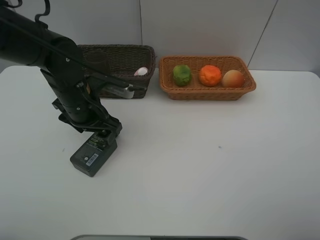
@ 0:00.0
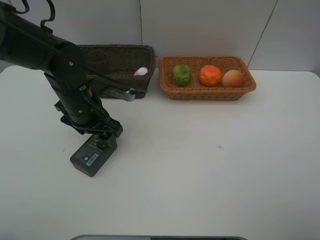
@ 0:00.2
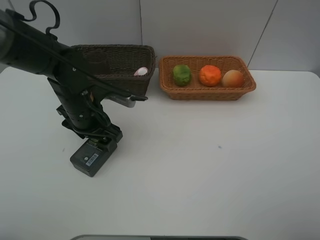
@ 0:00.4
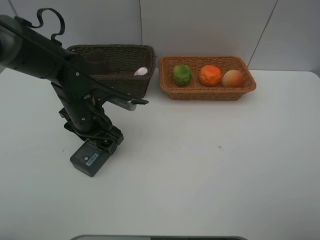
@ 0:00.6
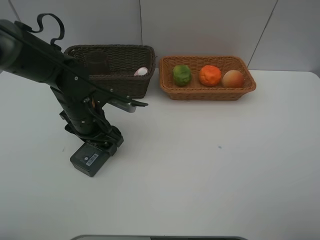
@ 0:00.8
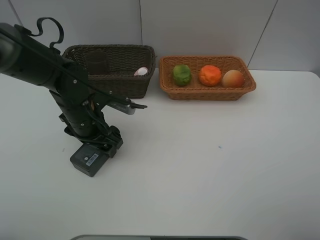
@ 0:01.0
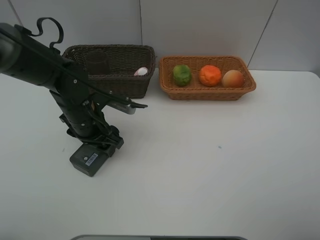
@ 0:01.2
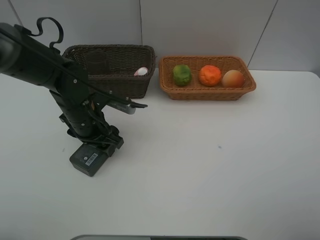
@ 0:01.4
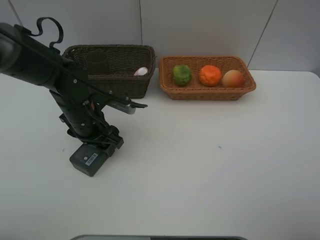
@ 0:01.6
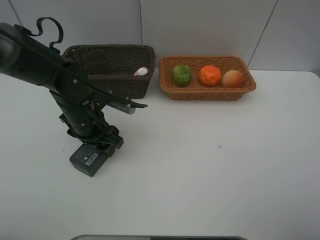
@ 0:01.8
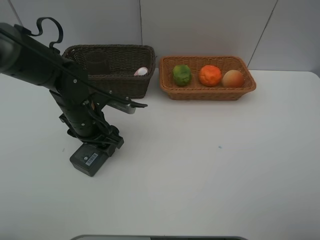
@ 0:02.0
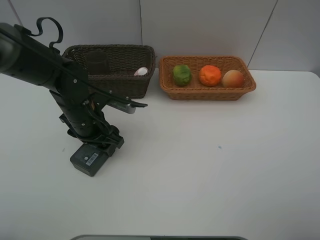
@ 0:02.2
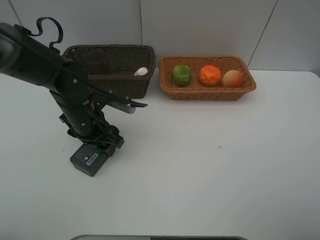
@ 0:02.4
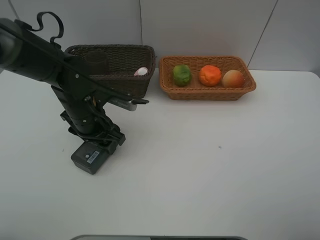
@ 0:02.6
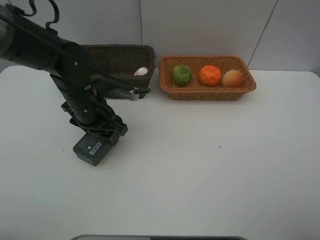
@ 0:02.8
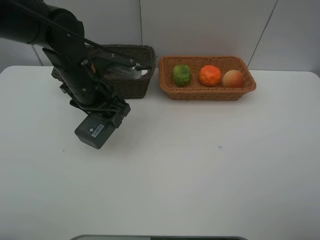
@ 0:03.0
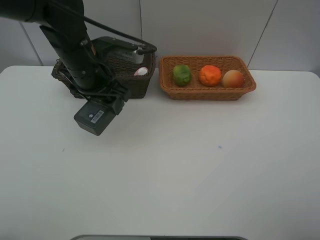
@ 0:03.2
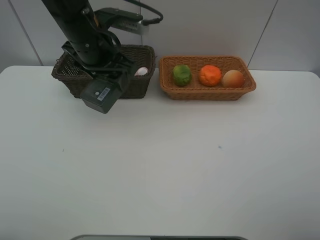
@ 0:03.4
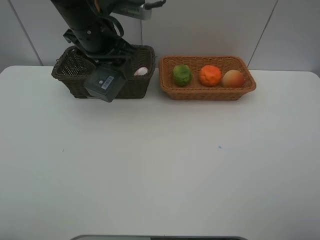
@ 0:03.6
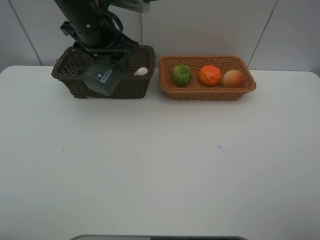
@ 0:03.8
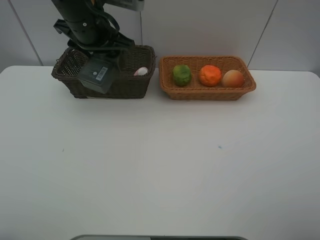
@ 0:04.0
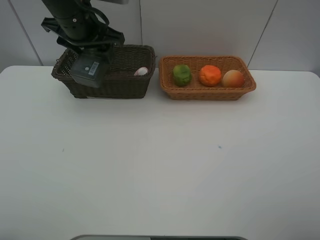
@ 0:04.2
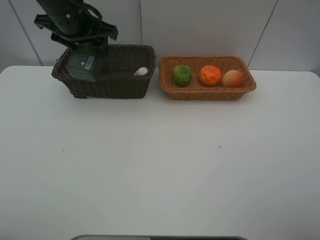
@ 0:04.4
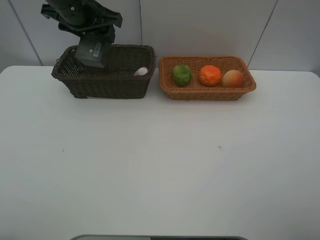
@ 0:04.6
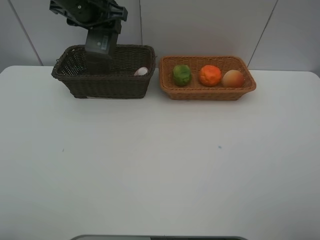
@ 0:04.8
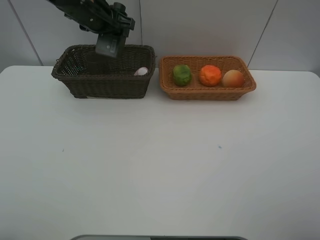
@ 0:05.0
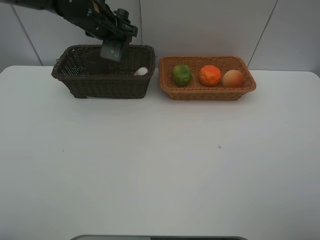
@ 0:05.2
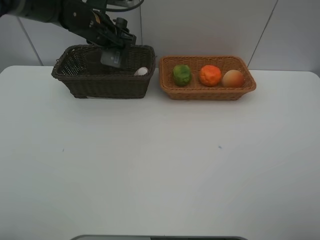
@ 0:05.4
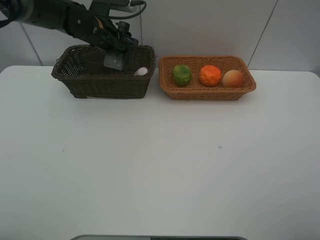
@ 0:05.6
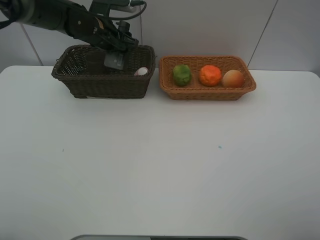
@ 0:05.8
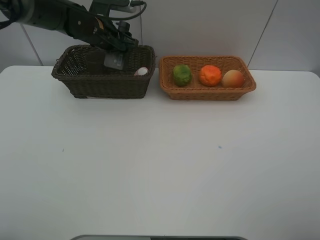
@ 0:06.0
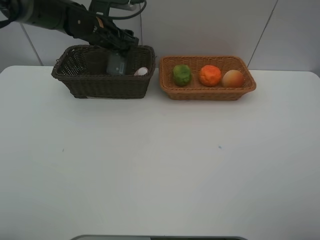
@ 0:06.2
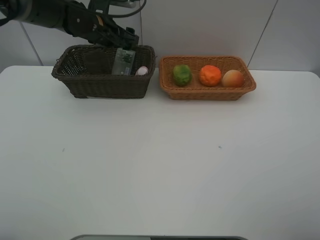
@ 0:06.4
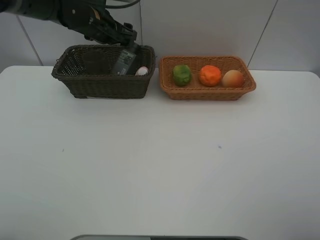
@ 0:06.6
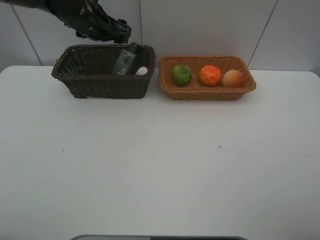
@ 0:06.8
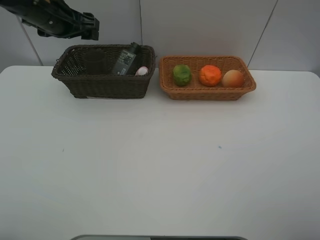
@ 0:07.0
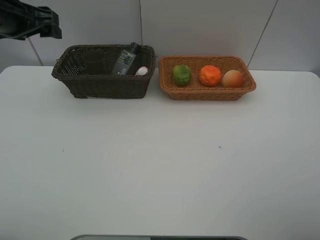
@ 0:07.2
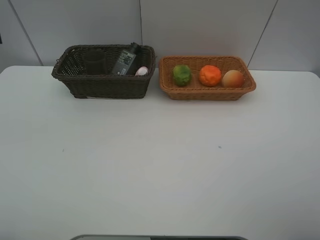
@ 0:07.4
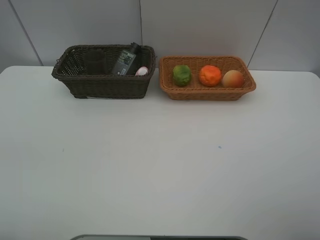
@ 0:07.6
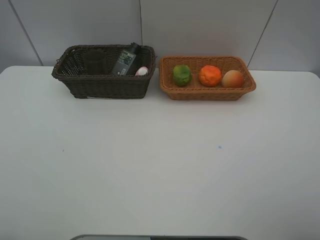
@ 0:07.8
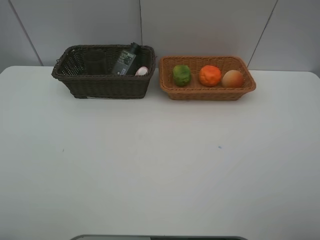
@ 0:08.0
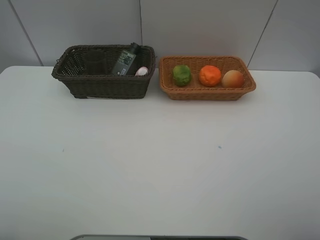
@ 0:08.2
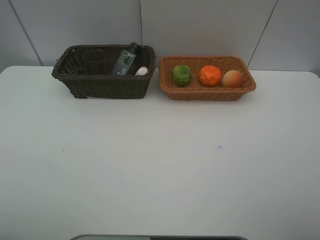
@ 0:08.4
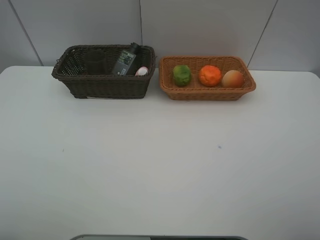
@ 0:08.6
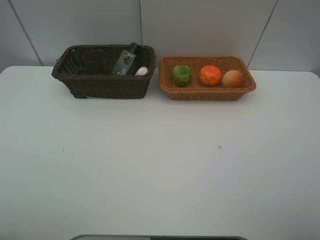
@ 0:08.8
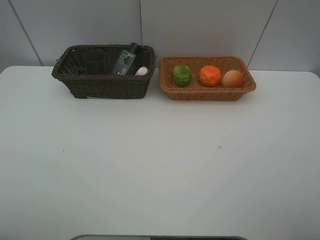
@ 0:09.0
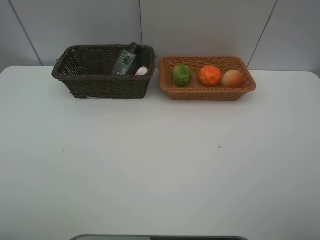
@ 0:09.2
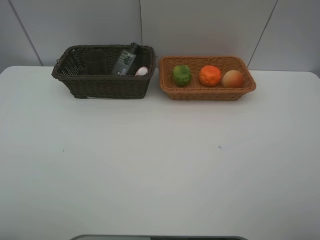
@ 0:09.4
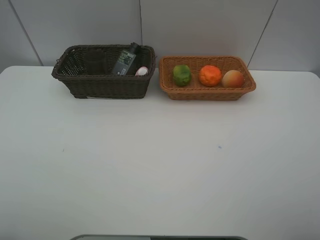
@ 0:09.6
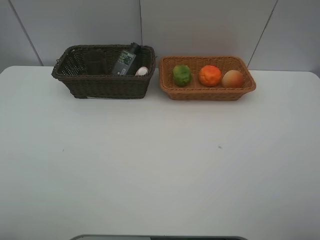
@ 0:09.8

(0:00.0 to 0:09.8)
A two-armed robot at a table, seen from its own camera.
Task of the whole recording: place multiple objects separately in different baskets.
0:00.0 - 0:02.8: The grippers move only a little.
0:02.8 - 0:04.2: The left gripper moves upward and forward, about 15 cm.
0:04.2 - 0:05.6: The left gripper is displaced forward and downward by about 10 cm.
0:05.6 - 0:07.0: The left gripper travels to the left, upward and backward by approximately 15 cm.
0:07.0 - 0:08.4: The left gripper travels backward by roughly 40 cm.

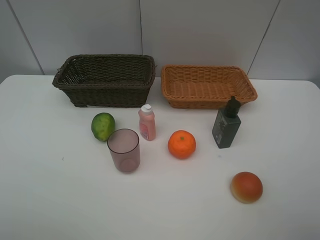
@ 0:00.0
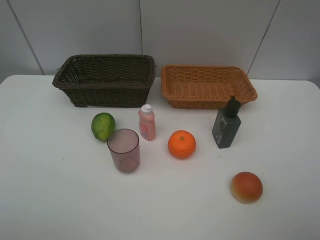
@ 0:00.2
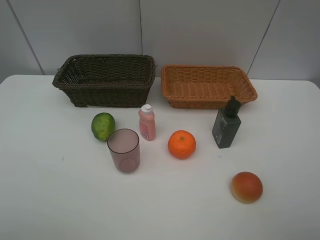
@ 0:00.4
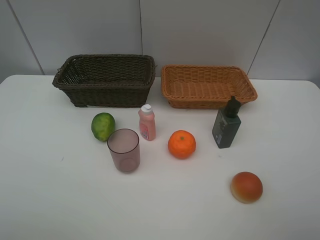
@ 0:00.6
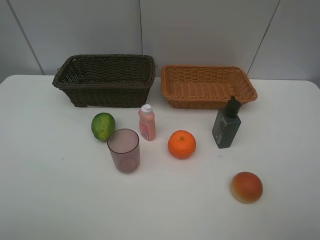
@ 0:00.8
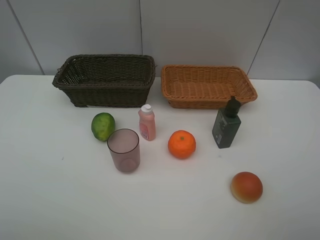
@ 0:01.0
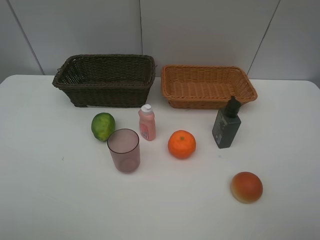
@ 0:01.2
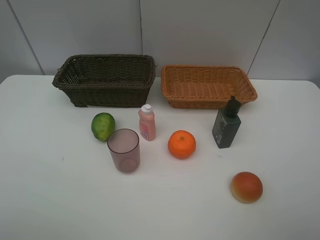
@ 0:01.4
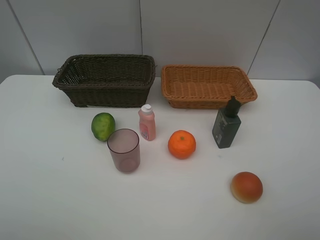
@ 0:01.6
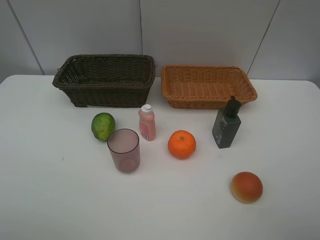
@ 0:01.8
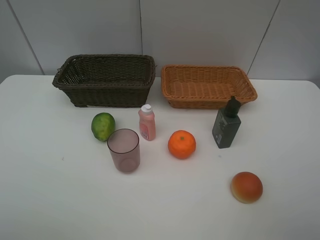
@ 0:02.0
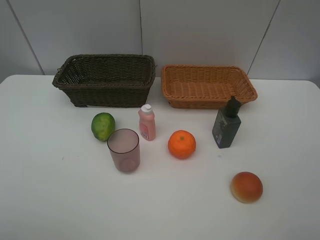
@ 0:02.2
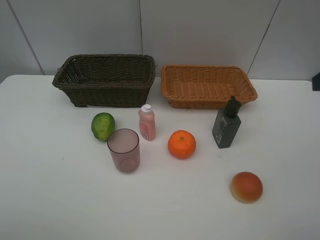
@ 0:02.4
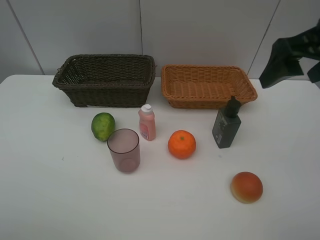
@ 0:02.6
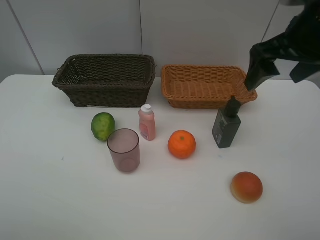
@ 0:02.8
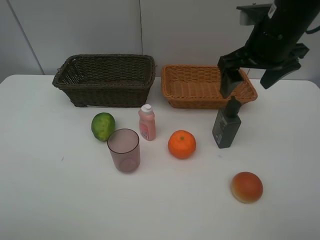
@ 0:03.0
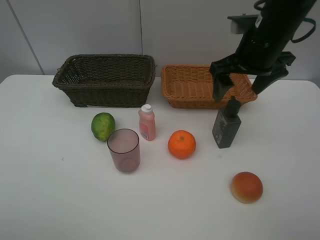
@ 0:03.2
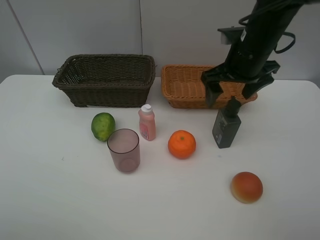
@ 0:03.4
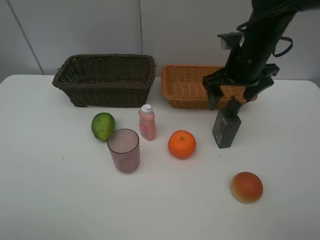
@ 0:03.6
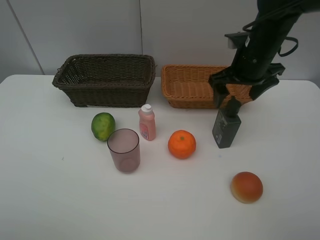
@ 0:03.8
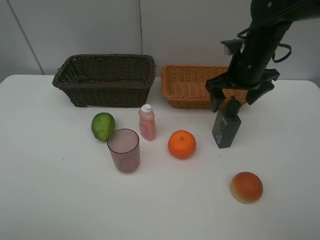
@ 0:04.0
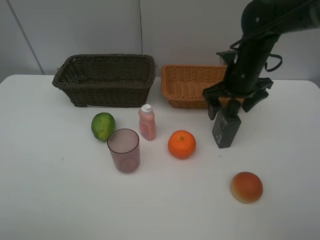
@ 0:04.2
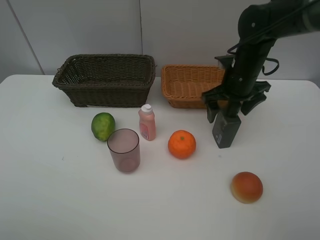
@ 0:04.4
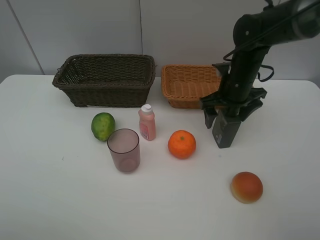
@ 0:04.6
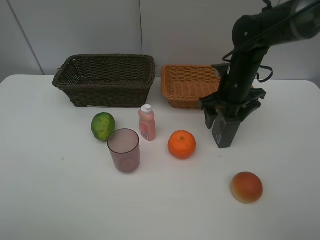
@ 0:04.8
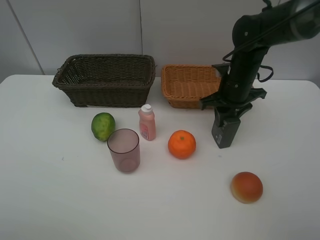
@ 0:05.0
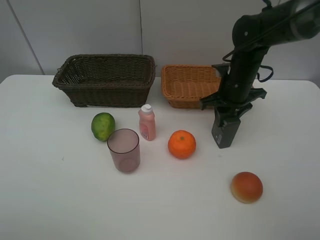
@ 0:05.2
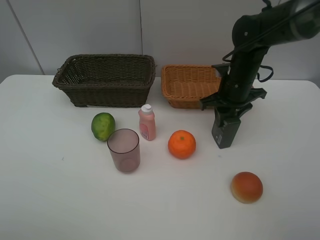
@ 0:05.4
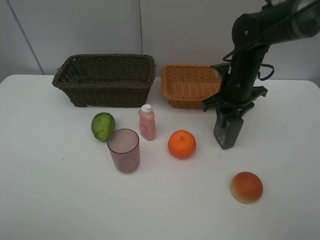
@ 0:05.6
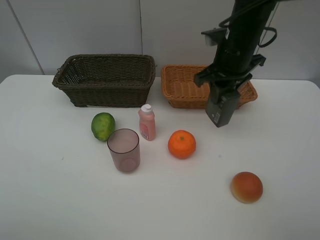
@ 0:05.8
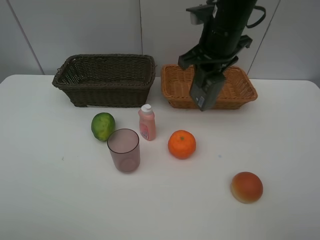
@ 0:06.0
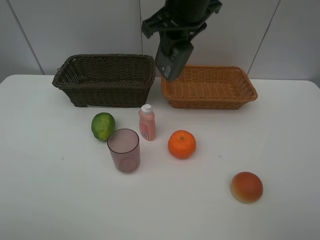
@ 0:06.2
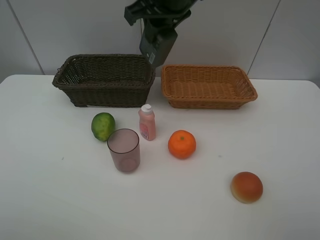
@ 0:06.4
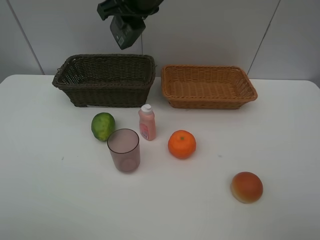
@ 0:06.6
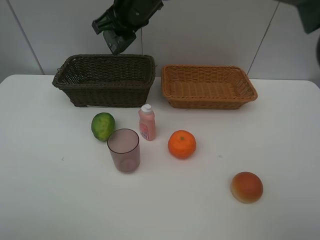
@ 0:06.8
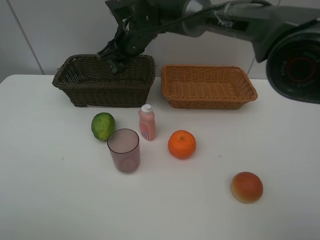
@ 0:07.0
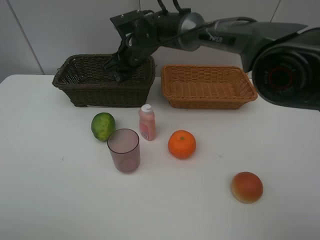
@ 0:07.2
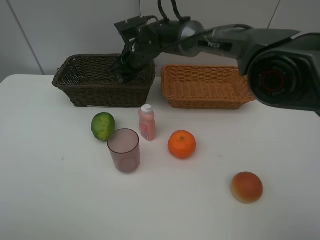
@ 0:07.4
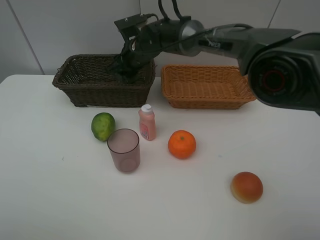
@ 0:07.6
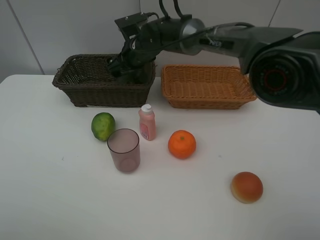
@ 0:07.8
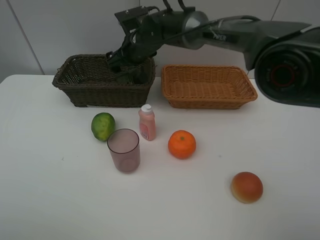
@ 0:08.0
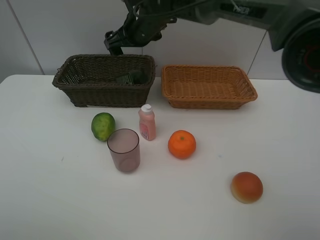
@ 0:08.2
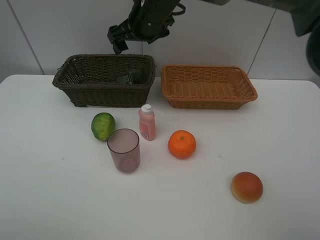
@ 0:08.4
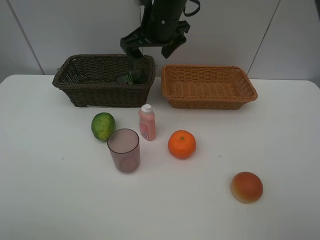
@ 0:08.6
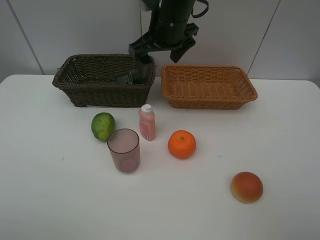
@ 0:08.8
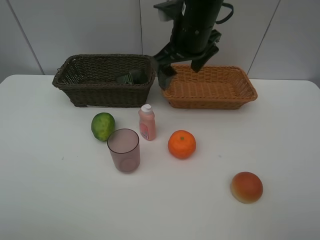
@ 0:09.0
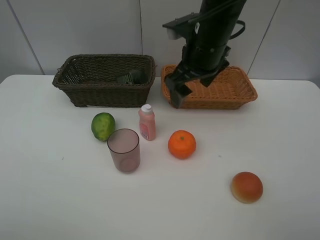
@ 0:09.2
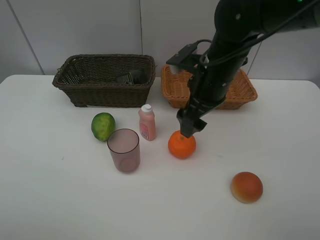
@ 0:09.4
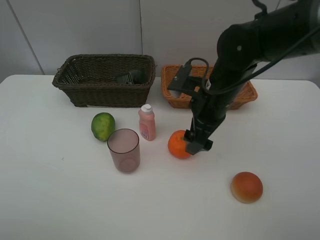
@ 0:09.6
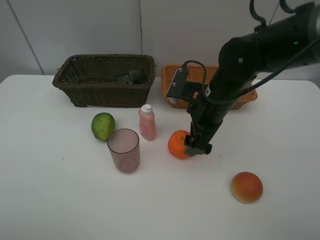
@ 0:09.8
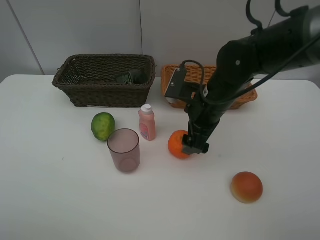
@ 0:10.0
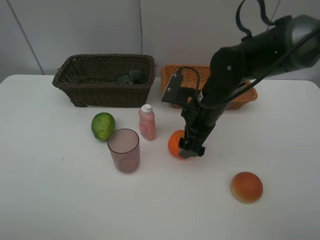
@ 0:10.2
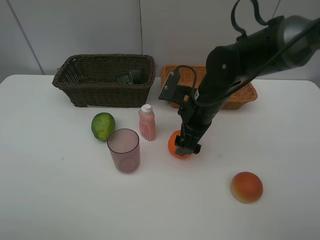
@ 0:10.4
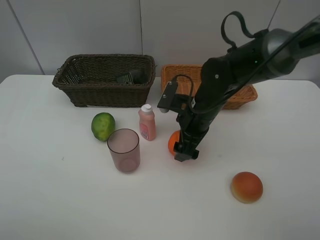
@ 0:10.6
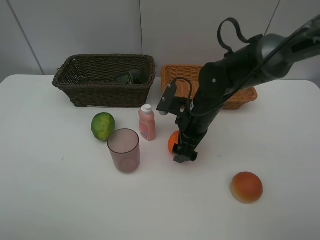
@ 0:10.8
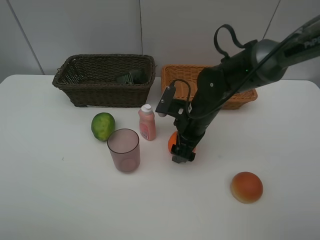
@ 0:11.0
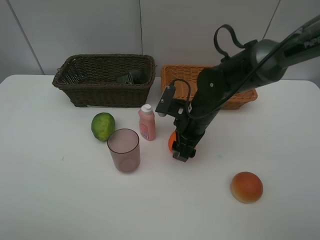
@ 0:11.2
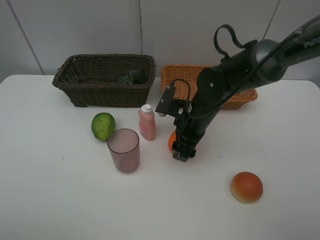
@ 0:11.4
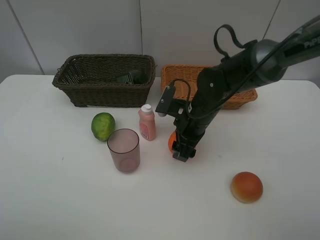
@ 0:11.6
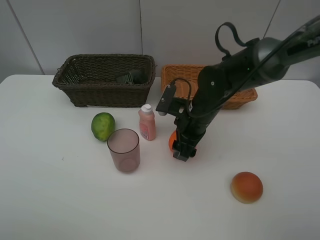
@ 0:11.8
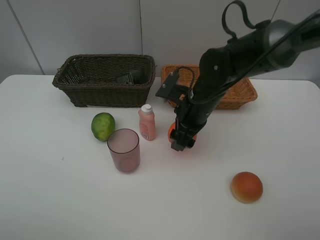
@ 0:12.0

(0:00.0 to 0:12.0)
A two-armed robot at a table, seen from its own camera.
Task of the whole recording: place multiple objects separately in different baskets.
0:00.0 - 0:01.6: Both grippers stay put.
0:01.6 - 0:03.0: The right gripper goes about 35 cm forward and to the left.
0:03.0 - 0:04.4: The right gripper moves downward and forward, about 10 cm.
0:04.4 - 0:06.0: The right gripper heads upward and to the left, covering roughly 15 cm, and closes up.
0:06.0 - 0:07.6: The right gripper goes some 20 cm to the left, downward and forward, and opens its fingers.
0:07.6 - 0:09.0: The right gripper shifts roughly 20 cm backward, to the right and upward, and opens.
0:09.0 - 0:10.4: The right gripper goes some 15 cm downward.
0:10.4 - 0:12.0: The right gripper closes.
